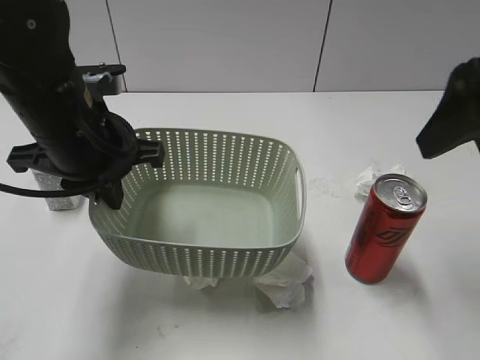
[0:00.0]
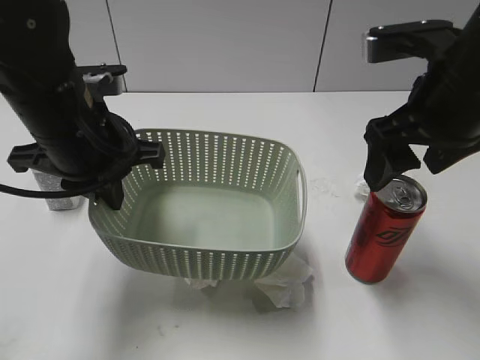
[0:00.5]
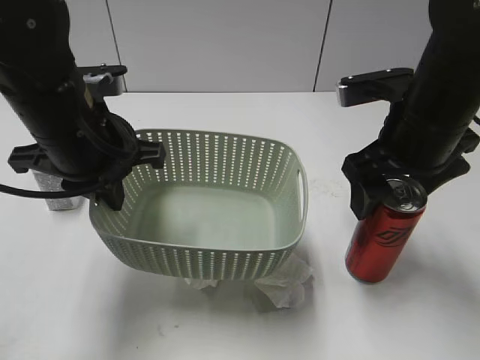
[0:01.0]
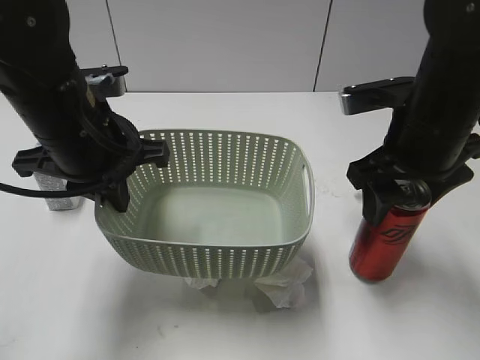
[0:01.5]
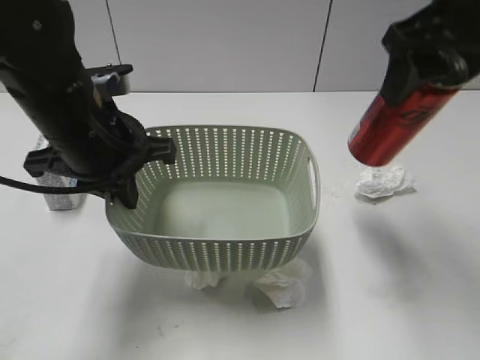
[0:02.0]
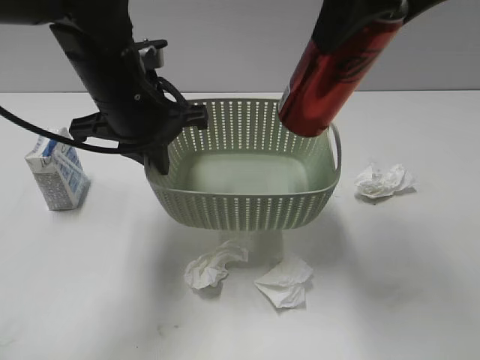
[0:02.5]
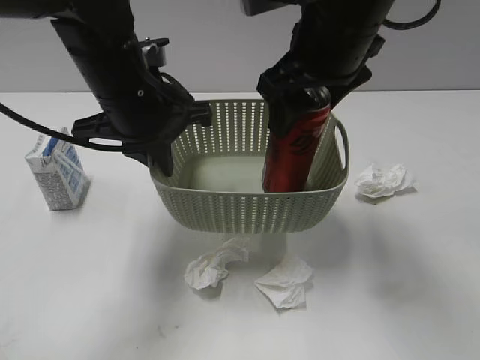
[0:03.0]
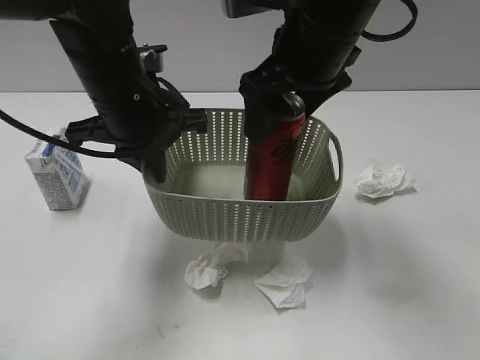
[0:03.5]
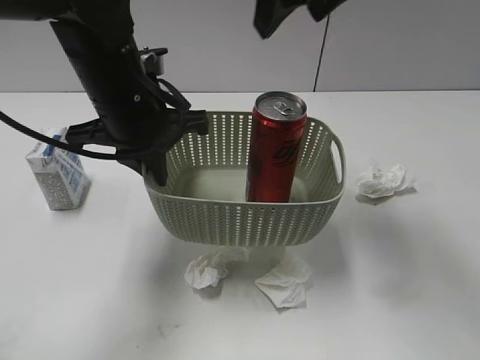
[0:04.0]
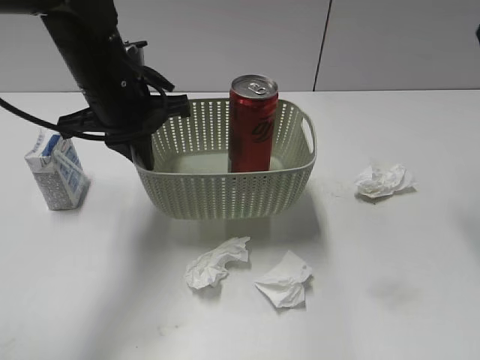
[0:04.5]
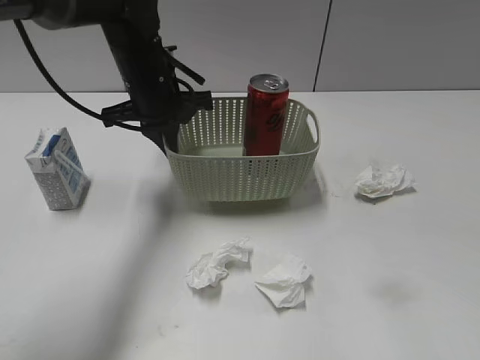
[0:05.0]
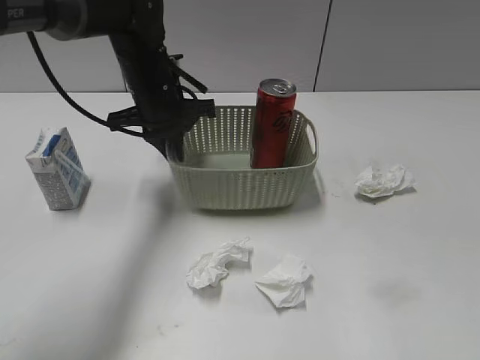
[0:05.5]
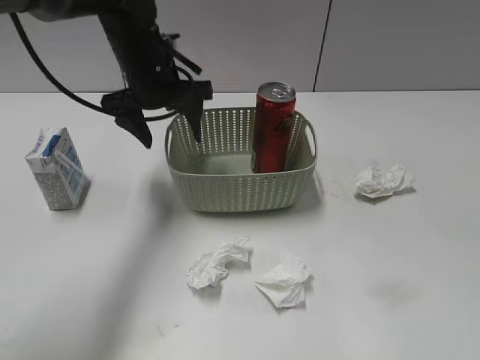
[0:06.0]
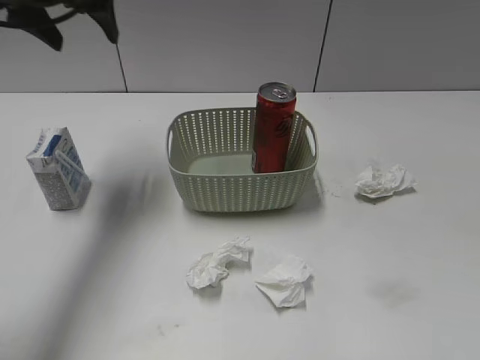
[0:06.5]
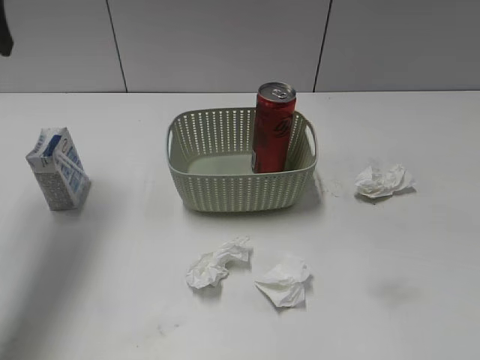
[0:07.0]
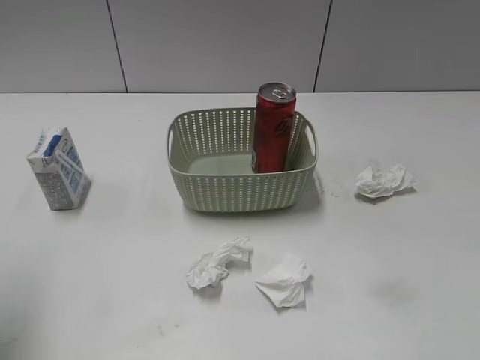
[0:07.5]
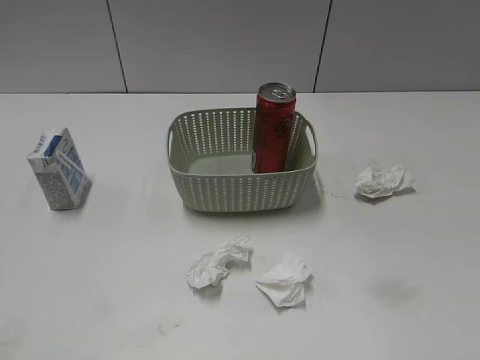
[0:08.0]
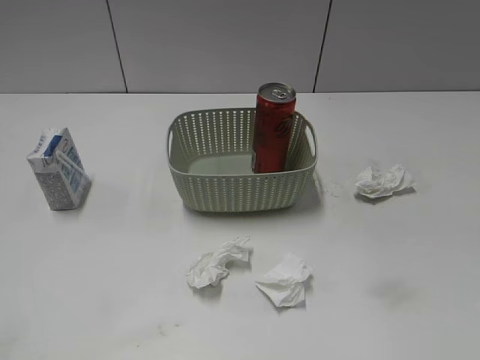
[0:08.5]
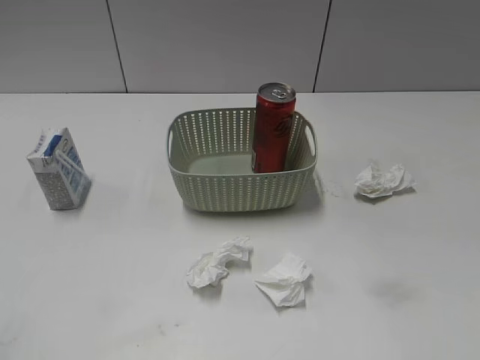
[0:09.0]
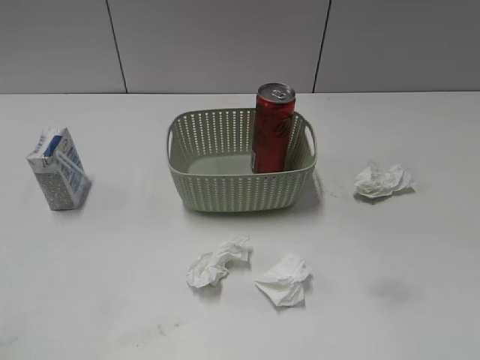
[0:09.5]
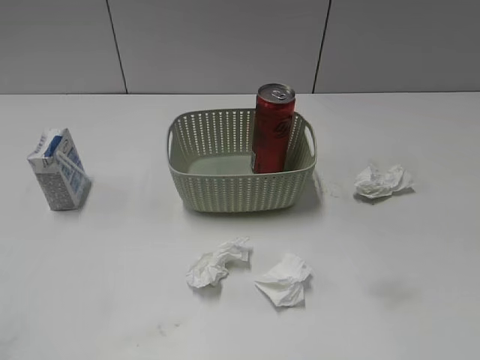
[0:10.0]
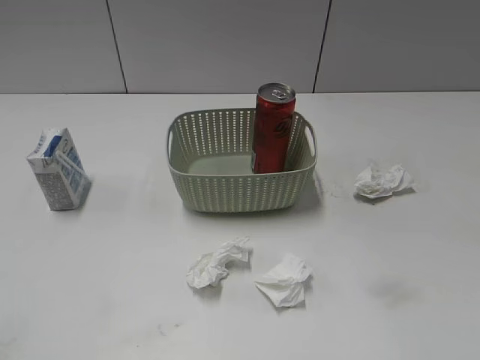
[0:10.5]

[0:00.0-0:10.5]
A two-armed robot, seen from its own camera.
Step, 0:00.0 to 0:01.5: Grasp the cola can with right gripper.
Step, 0:02.0 to 0:03.5: Place the cola can in the basket with right gripper.
Step, 0:04.0 to 0:05.5: Place the basket on the table with left gripper.
0:00.0 to 0:02.0: The right gripper goes downward and returns, about 10 cm each way, and closes.
0:02.0 to 0:04.0: The right gripper travels to the left and forward by about 10 cm, and opens. The left gripper moves about 5 cm.
0:04.0 to 0:06.5: The left gripper is displaced to the left, upward and forward by about 20 cm, and opens its fingers. Meanwhile the right gripper moves backward and to the right, roughly 40 cm, and closes up.
0:06.5 to 0:08.5: The left gripper goes some 40 cm backward.
